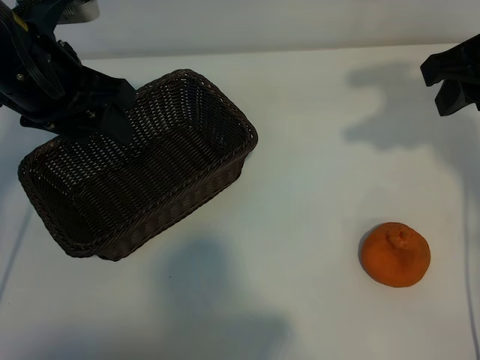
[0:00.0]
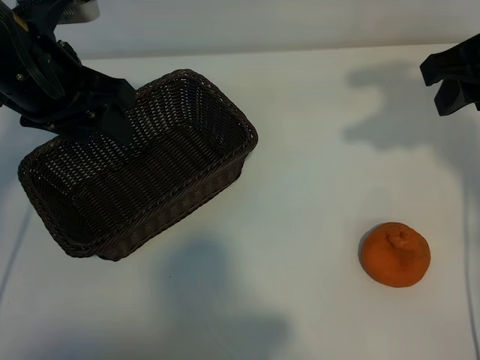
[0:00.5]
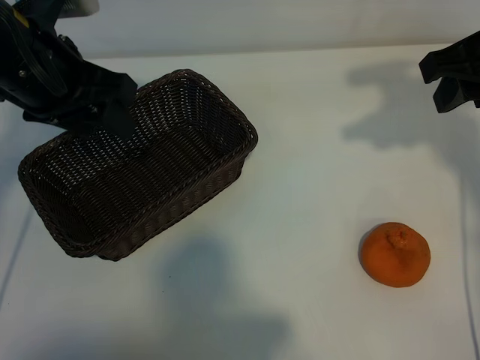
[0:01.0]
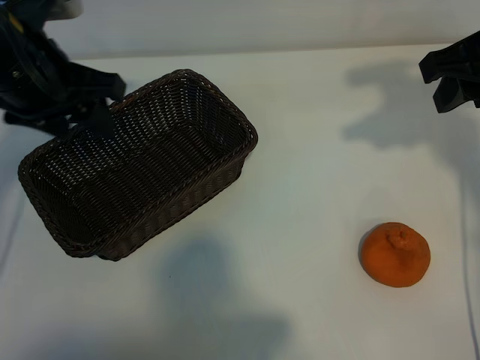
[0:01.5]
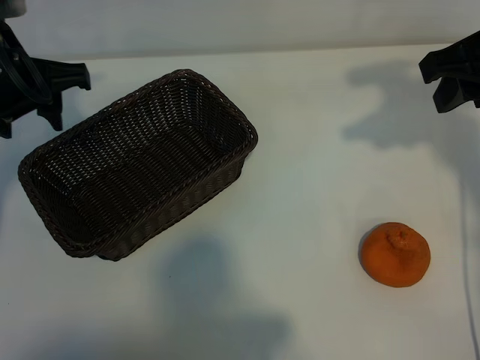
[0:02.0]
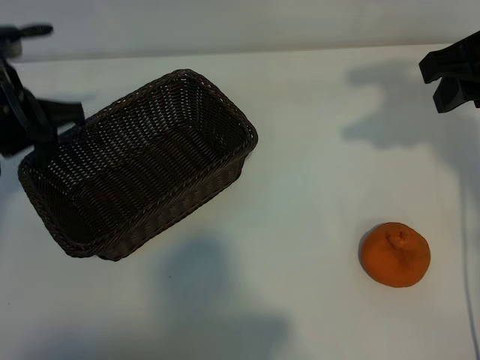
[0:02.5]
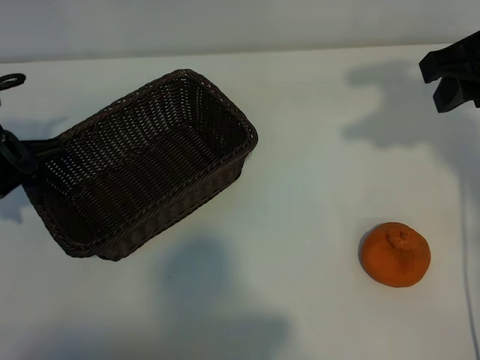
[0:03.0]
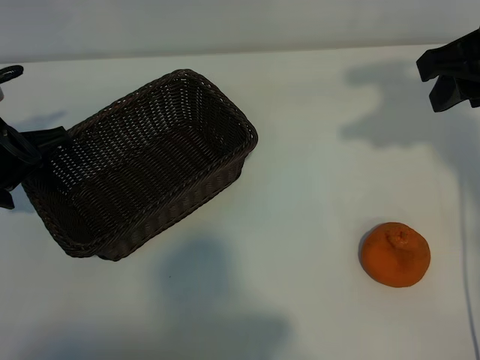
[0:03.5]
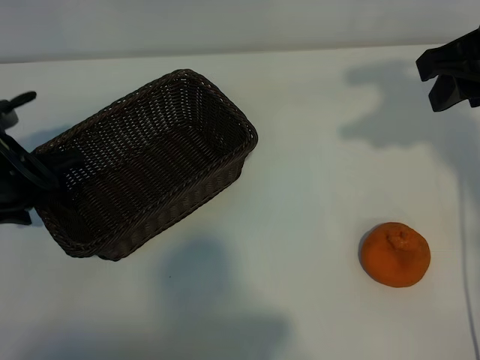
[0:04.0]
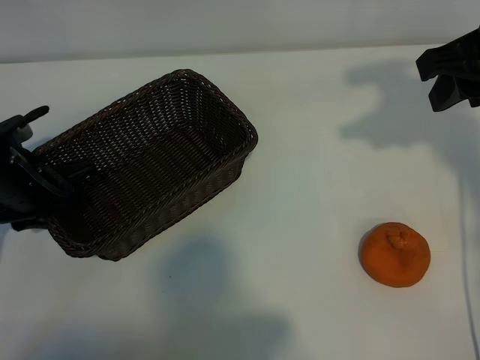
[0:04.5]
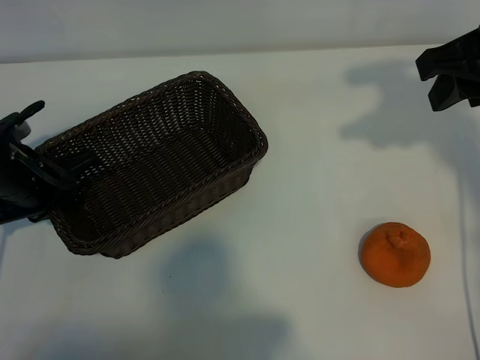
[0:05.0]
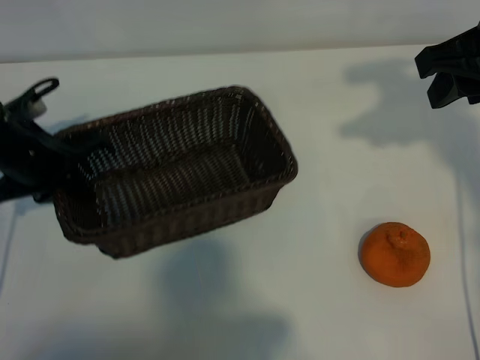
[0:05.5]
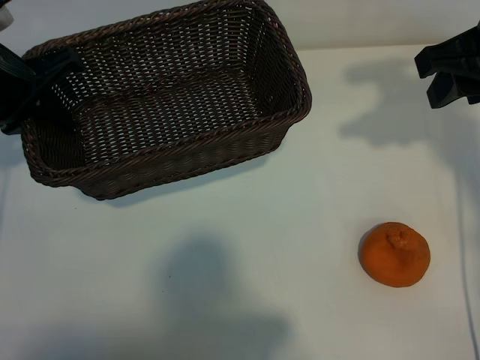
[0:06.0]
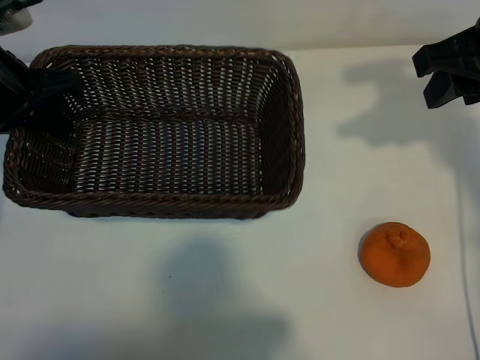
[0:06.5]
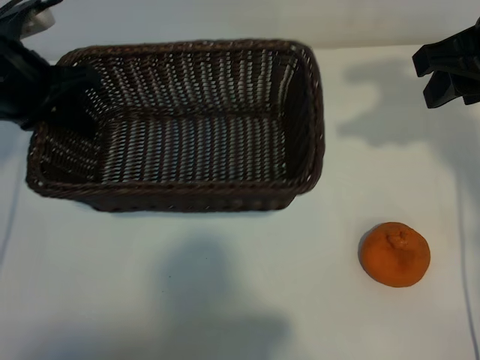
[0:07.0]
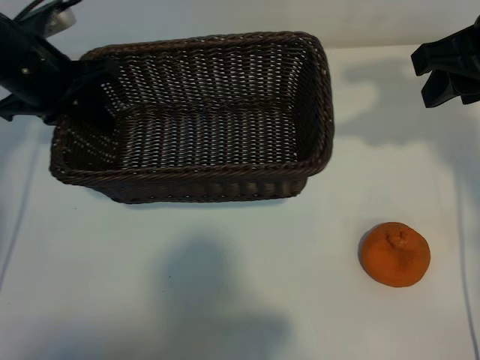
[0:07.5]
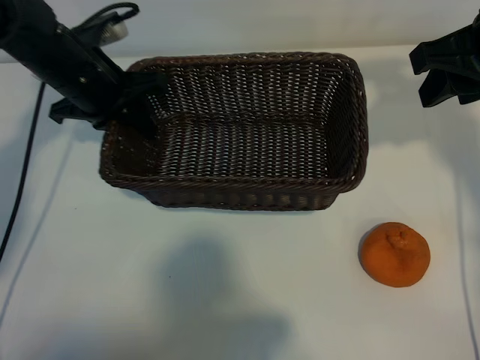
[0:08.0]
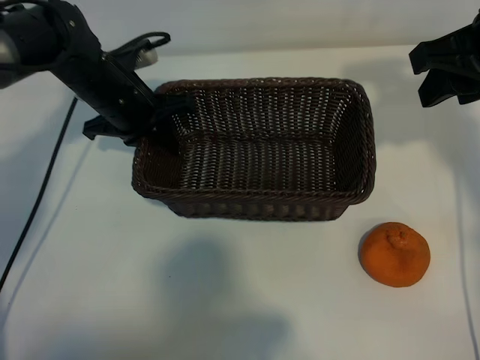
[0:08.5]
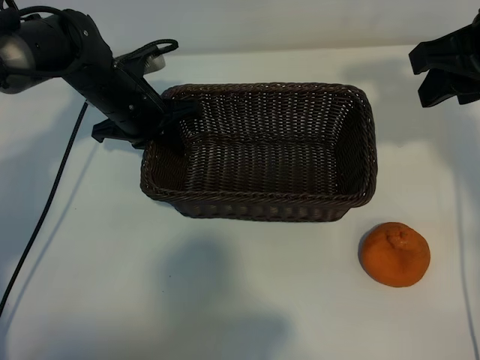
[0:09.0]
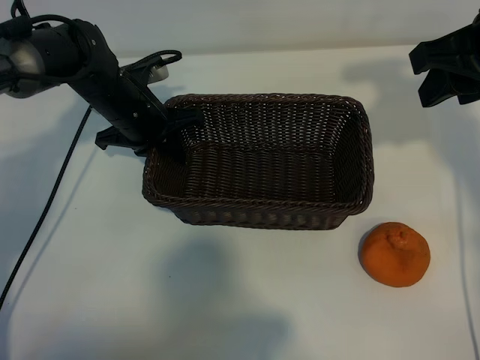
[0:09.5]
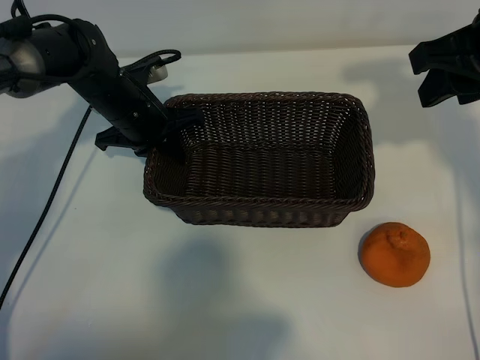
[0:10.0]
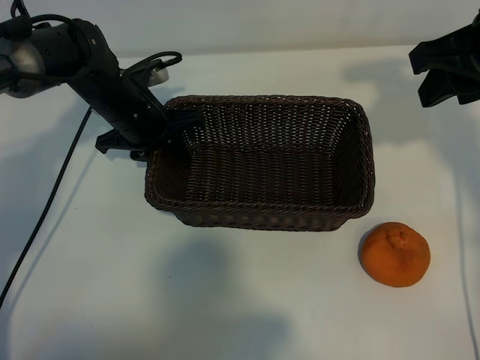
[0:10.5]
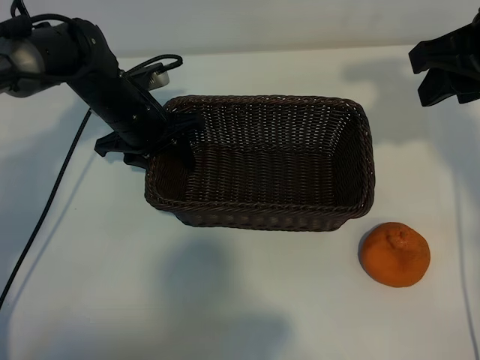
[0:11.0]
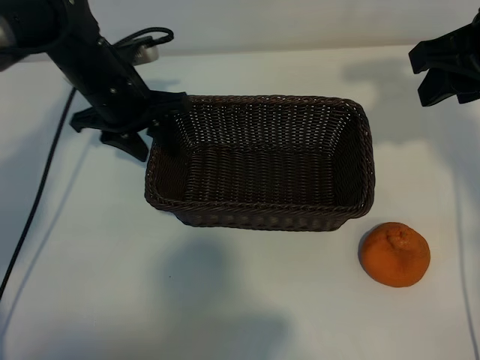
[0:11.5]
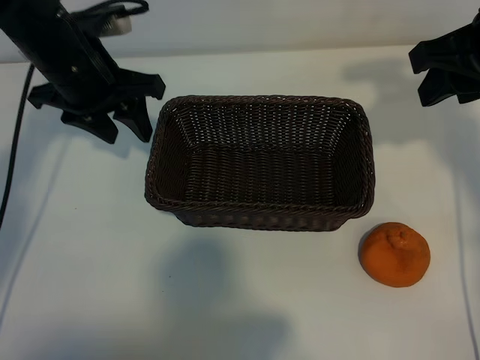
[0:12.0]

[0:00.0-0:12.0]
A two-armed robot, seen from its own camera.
Task of the whole recording: pick up the orange and put it into the basket.
Step, 0:01.0 to 0:04.5: Grasp the basket with left gripper.
Step, 0:05.0 to 0:10.0: Place the basket in the center of view with left gripper.

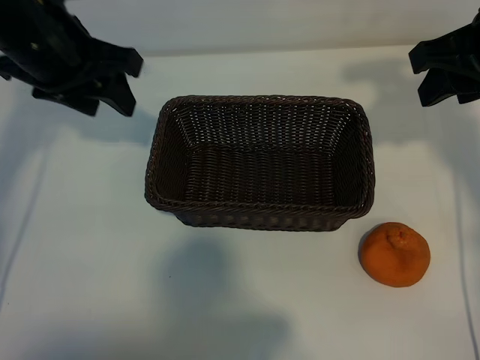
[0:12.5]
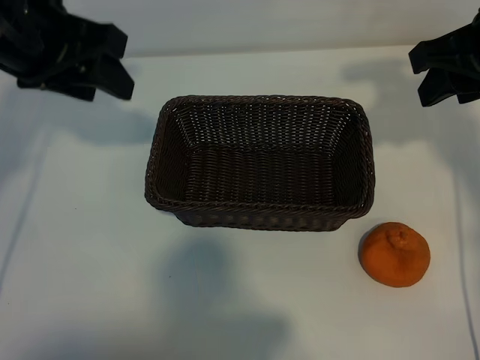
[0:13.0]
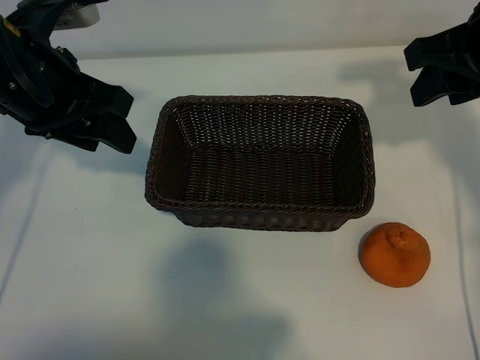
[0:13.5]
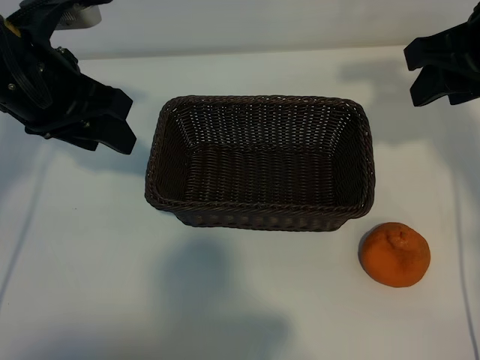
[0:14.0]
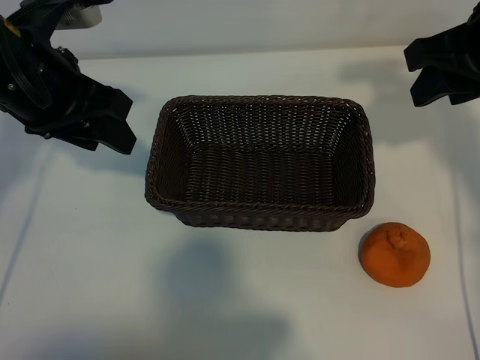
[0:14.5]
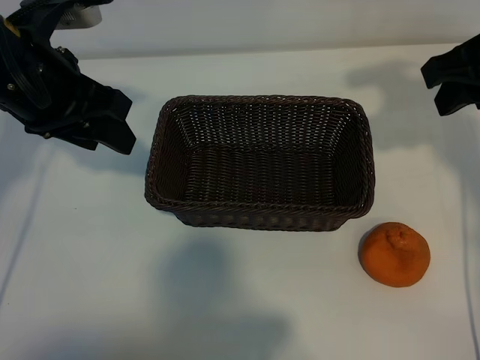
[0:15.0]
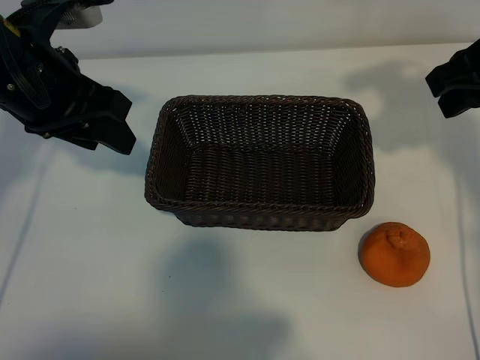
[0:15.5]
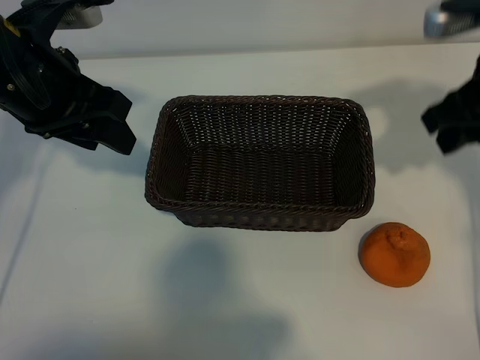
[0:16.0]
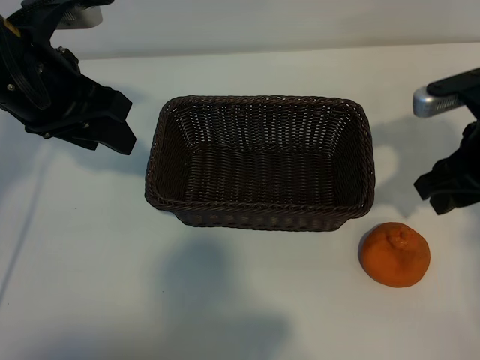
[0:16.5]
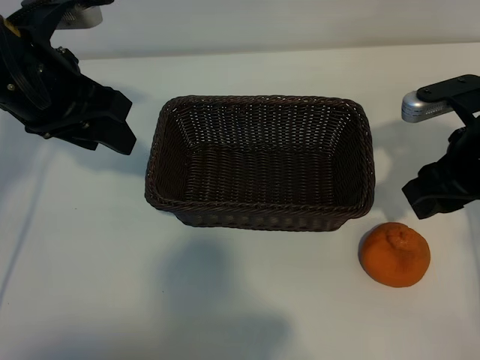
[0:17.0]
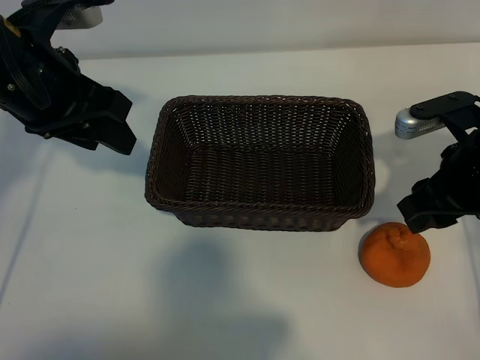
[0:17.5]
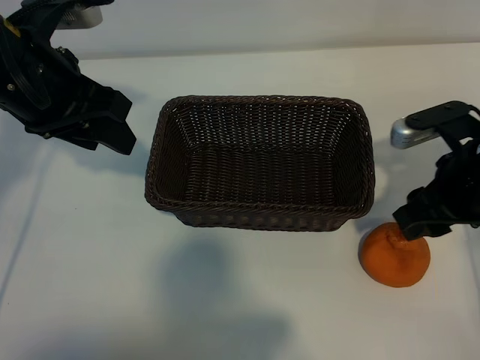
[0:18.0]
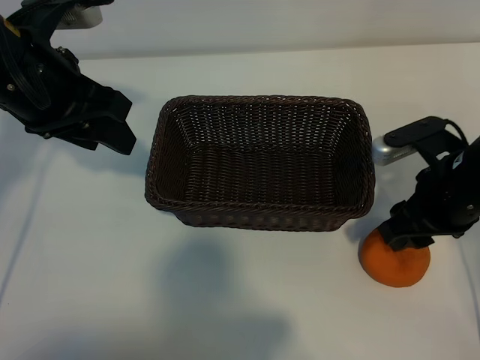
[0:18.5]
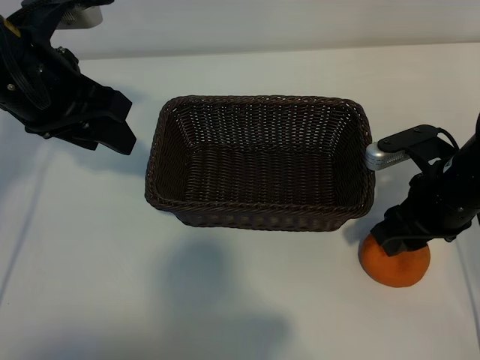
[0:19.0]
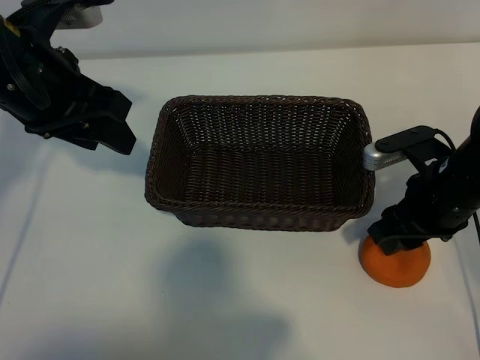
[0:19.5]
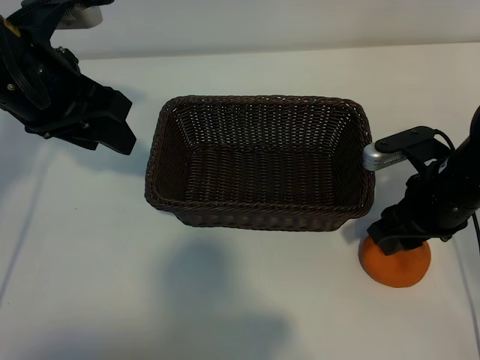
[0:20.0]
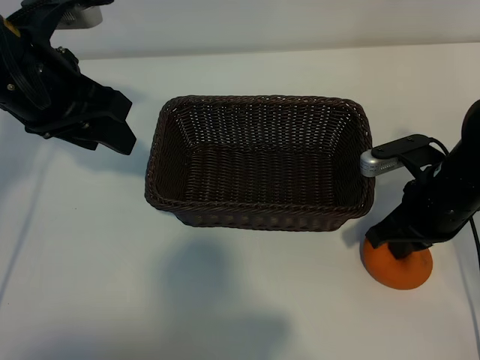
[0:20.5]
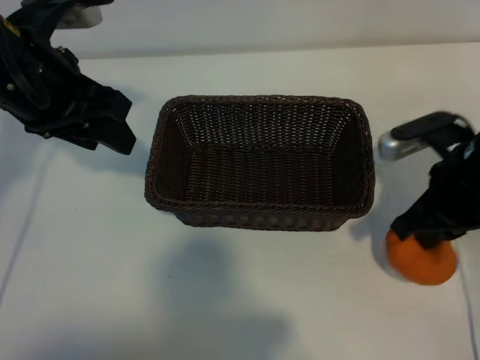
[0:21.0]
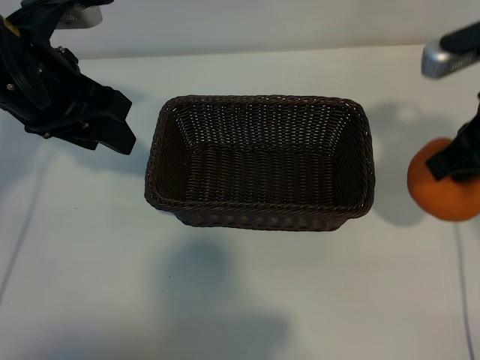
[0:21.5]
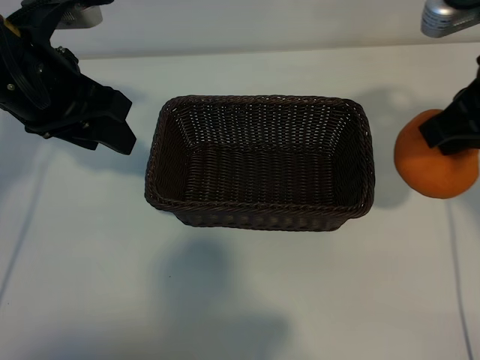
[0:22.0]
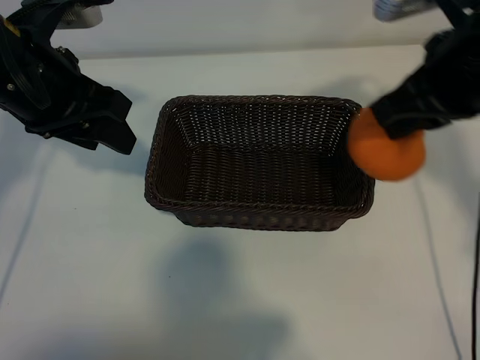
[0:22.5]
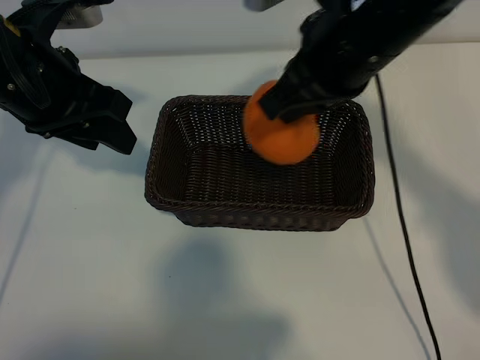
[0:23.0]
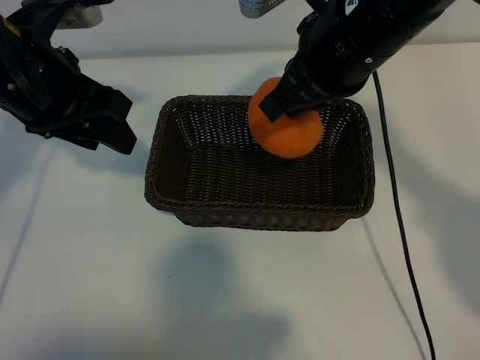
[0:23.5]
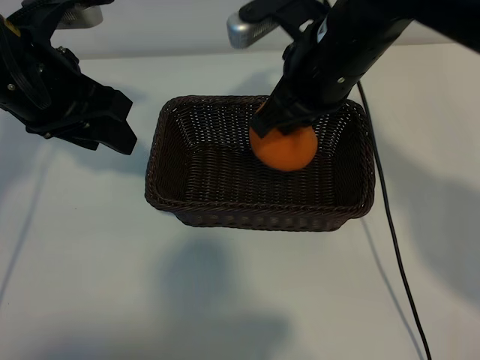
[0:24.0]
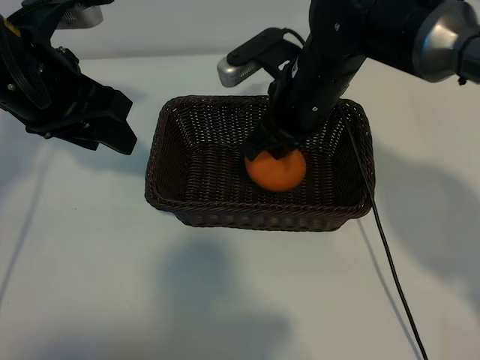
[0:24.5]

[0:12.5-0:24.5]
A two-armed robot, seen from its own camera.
Task of the whole recording: pick up the orange and put it into the basket.
Step, 0:12.5 to 0:20.5: Grasp the orange with right gripper.

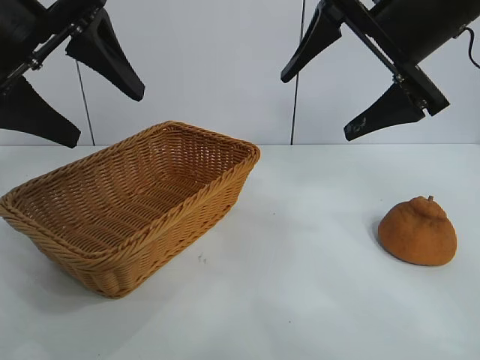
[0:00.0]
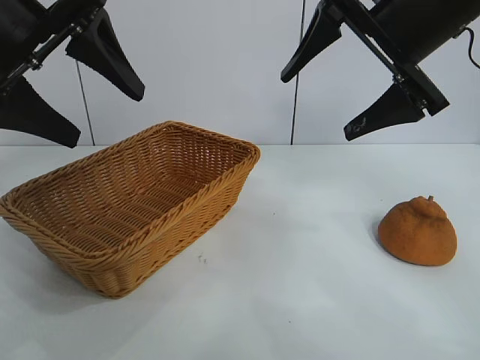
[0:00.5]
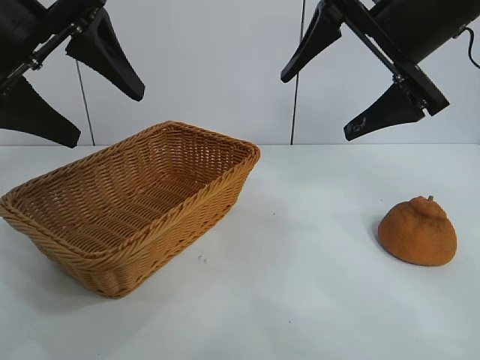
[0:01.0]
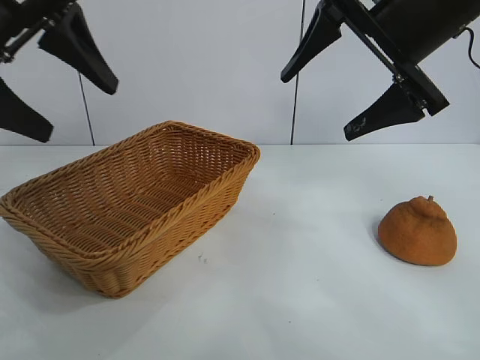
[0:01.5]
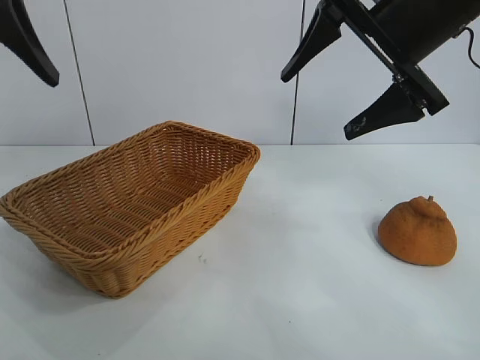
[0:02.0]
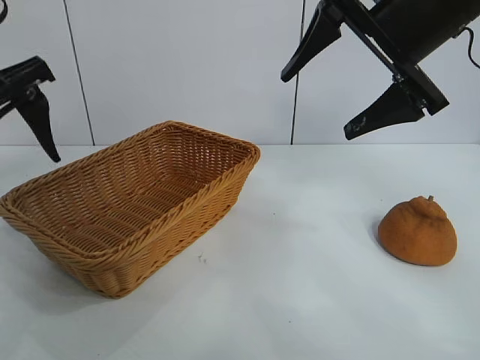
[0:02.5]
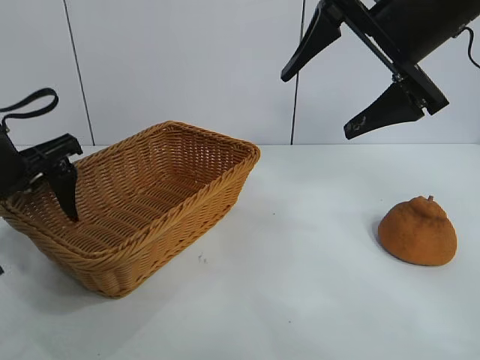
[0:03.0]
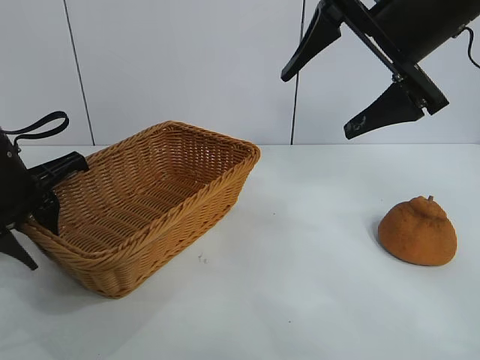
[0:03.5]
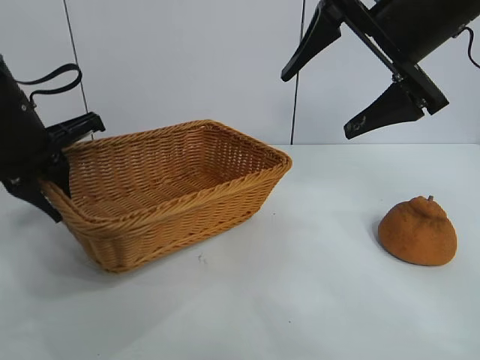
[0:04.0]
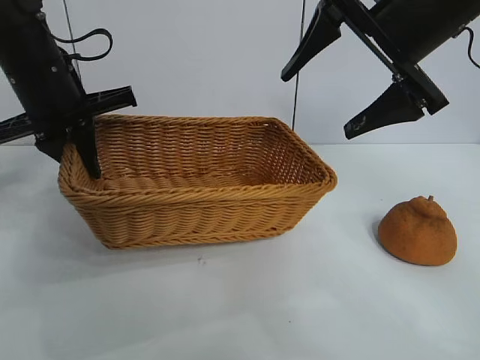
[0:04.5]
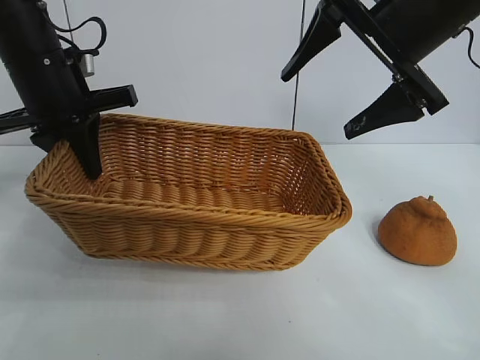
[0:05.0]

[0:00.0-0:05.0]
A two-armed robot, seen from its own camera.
Task of the whole recording: pick up the orange and put it into the basket.
Step, 0:01.0 to 0:03.5: Grasp the basket with left gripper.
